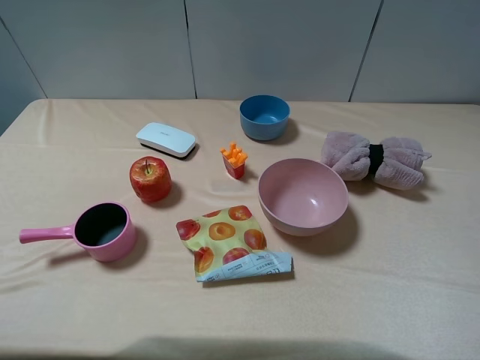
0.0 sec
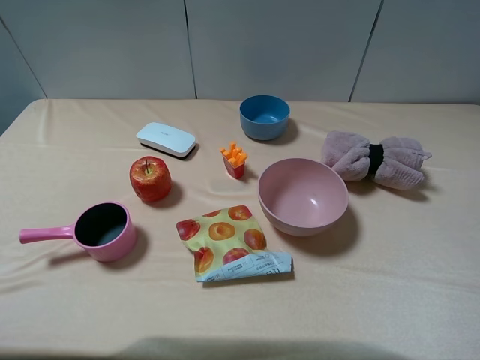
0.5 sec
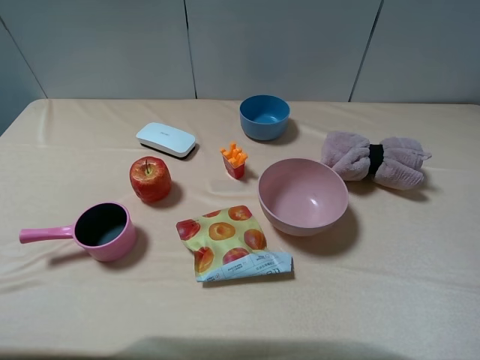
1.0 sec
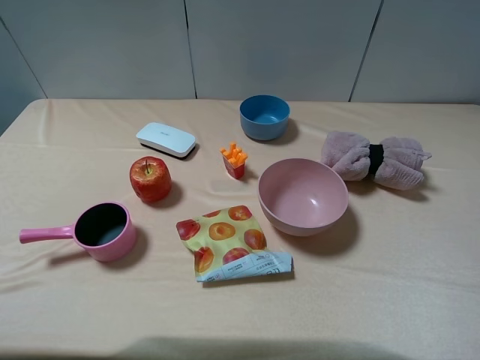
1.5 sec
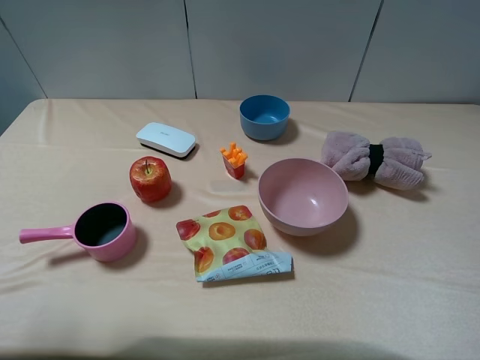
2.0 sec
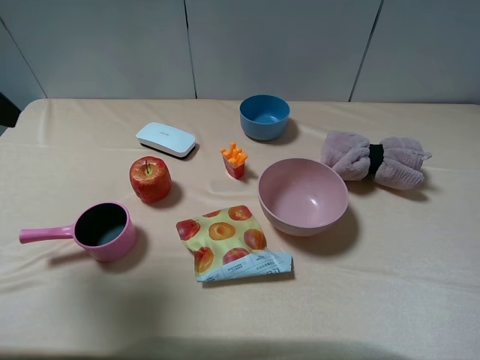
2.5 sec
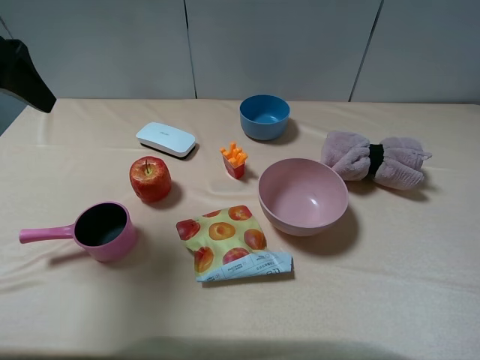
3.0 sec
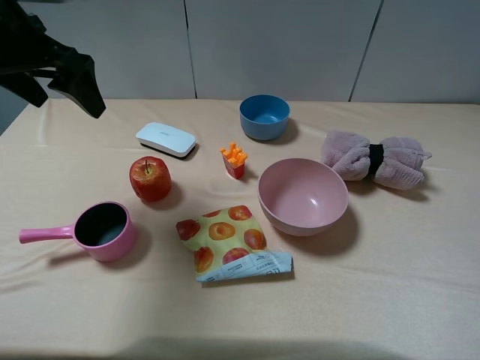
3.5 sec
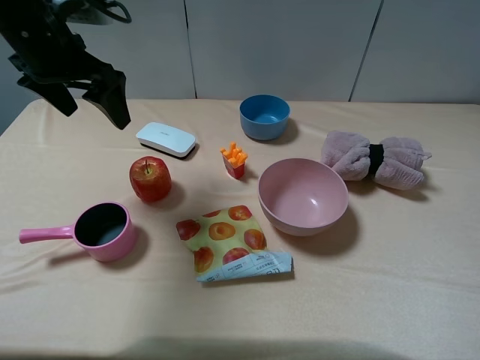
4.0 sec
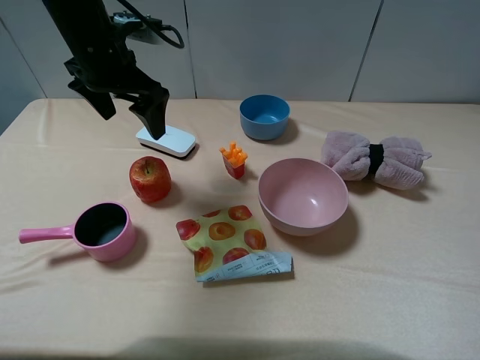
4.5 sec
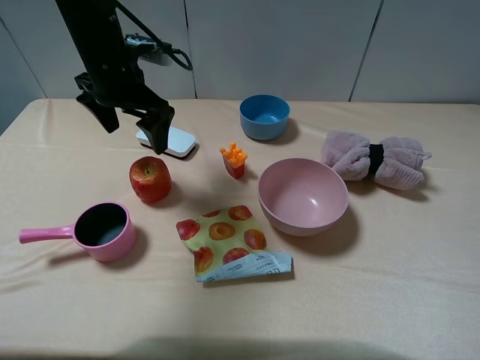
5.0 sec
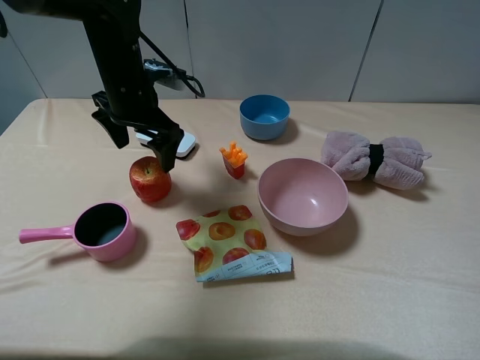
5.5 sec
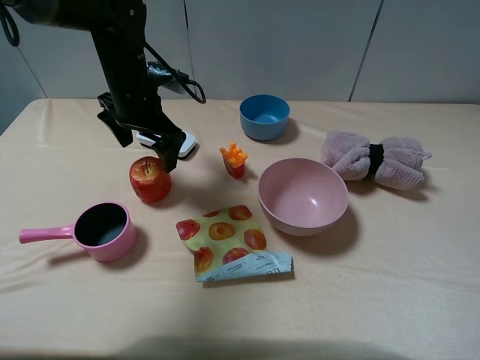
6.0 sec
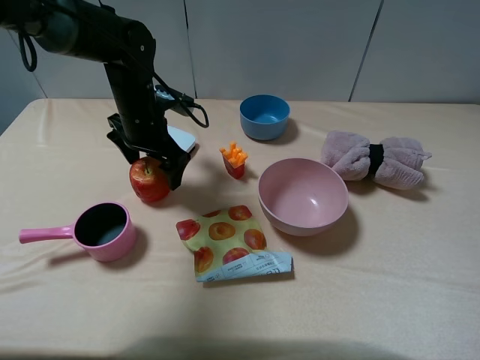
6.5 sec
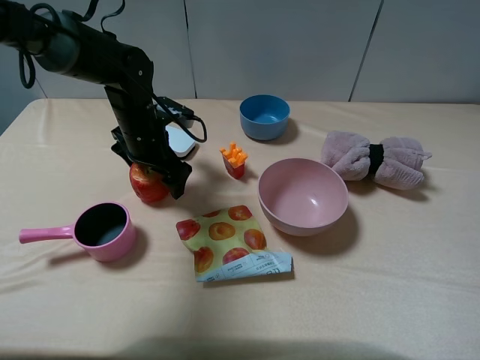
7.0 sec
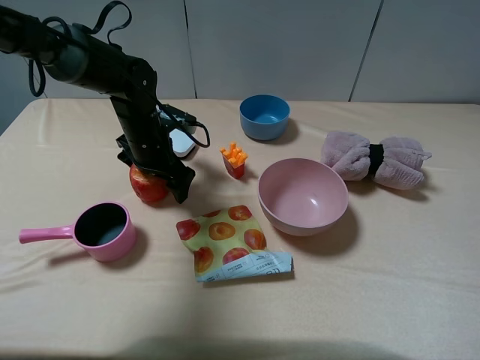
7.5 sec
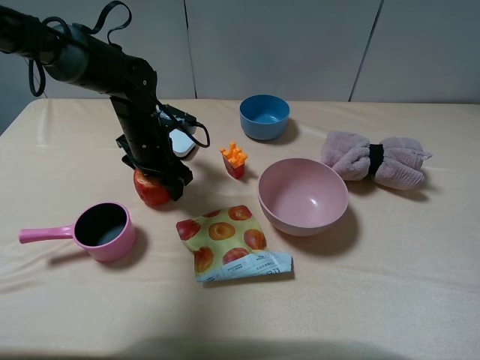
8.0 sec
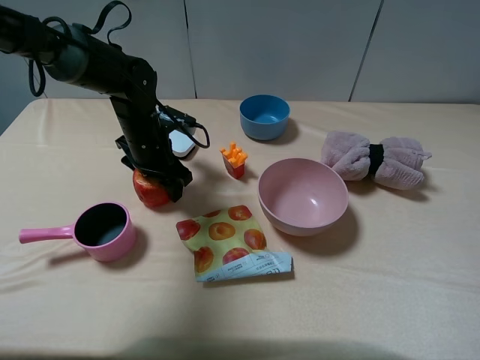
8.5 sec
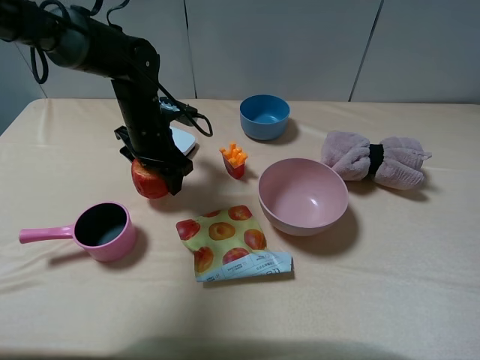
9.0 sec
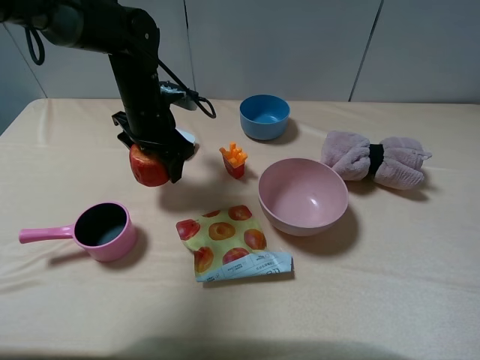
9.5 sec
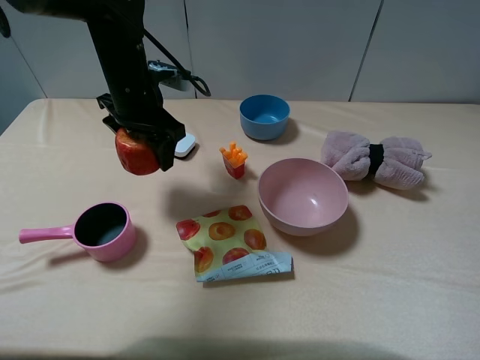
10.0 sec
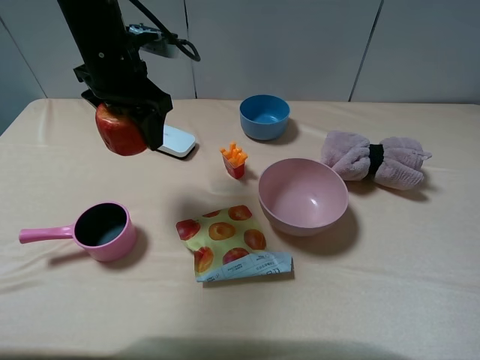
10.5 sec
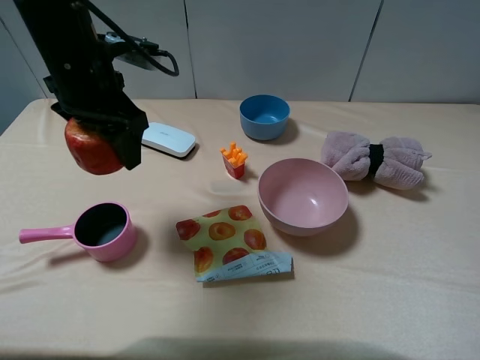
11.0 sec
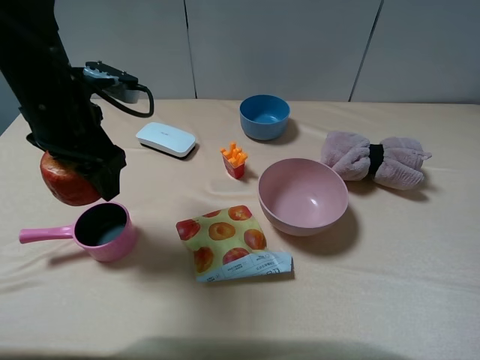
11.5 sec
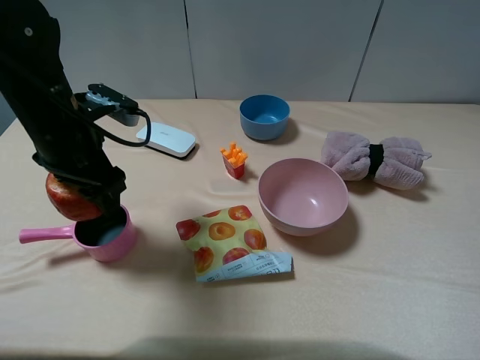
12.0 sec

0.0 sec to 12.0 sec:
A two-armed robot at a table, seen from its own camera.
Task of the whole recording: pick up an item with a gripper and place it in a random container on the table.
Step, 0.0 sec to 8.0 sec: Grasp the apple with the left gripper.
0.0 sec to 2.0 sec: The left gripper travels forward and upward by approximately 10 cm.
2.0 sec to 4.0 sec: The left gripper shifts approximately 25 cm forward.
4.0 sec to 6.0 sec: The left gripper shifts roughly 10 cm downward and to the right.
6.0 sec to 8.0 sec: The left gripper shifts some 5 cm downward, and closes its fingers.
8.0 sec to 10.0 sec: The left gripper heads upward, covering some 10 cm.
10.0 sec to 12.0 sec: The left gripper heads backward, covering some 10 cm.

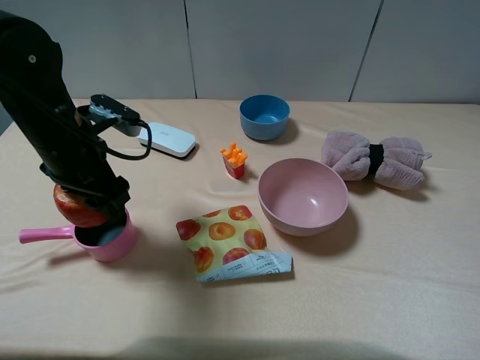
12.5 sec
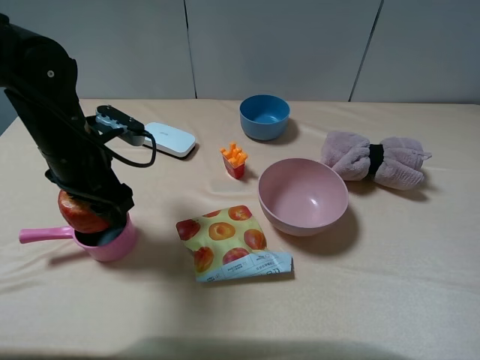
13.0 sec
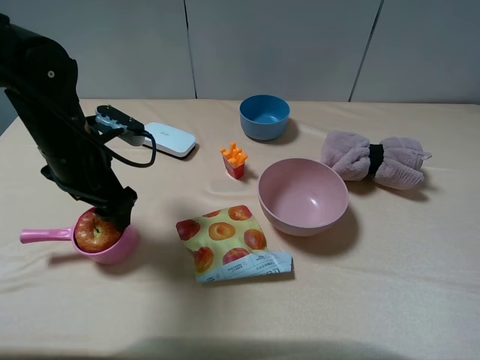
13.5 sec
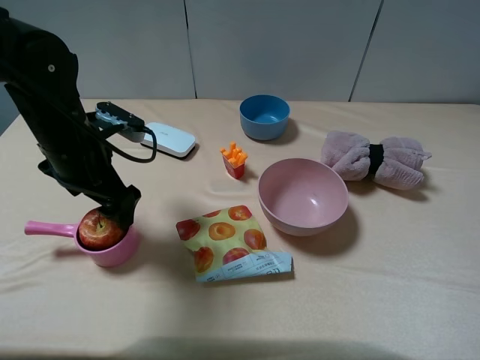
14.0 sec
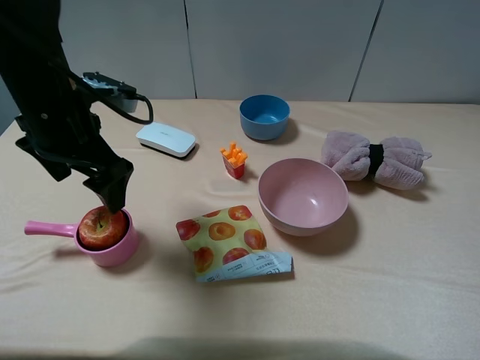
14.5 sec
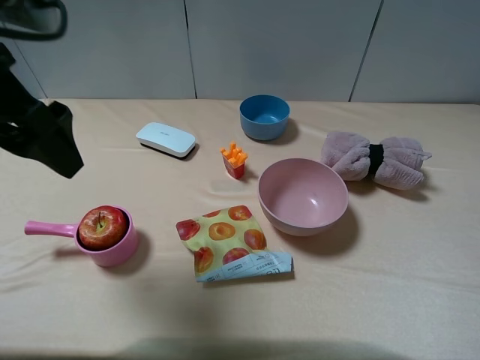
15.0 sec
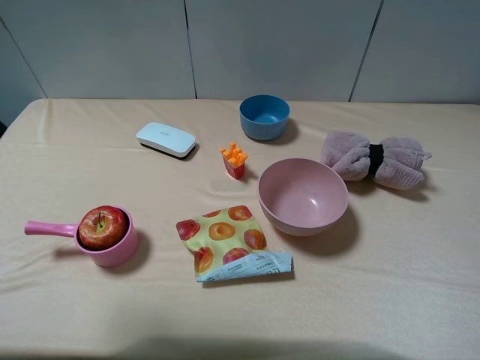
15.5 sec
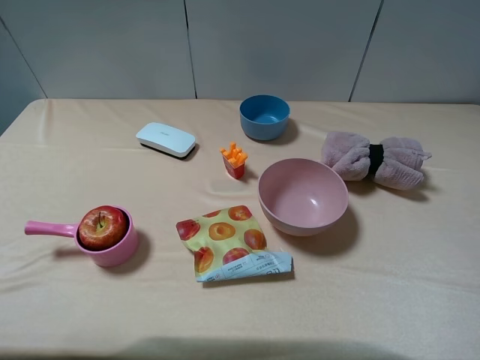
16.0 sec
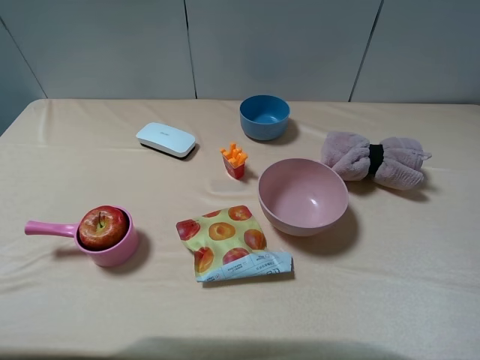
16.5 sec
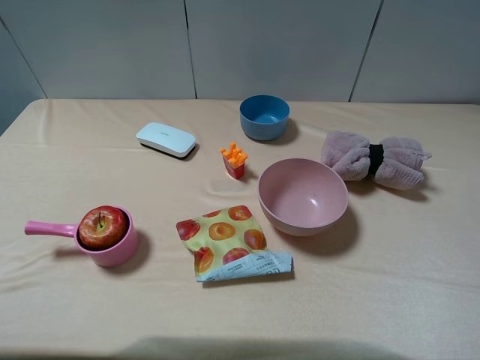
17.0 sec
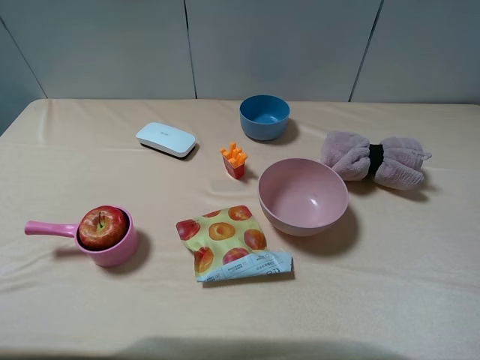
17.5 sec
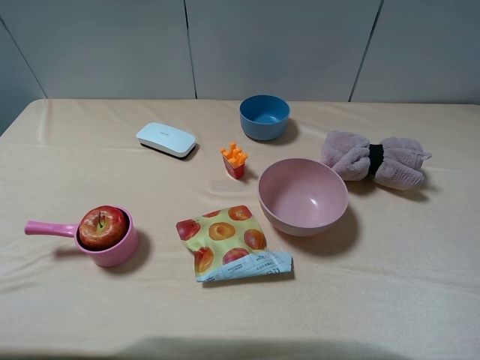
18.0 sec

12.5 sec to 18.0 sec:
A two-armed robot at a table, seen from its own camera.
Task of the whole recording: pick up an item with a gripper and place it in a random container on the table.
Step, 12.5 sec to 14.5 sec: Place the apple into the pink pot with the left gripper.
12.5 sec to 14.5 sec: The left gripper opens up.
14.5 sec to 16.0 sec: The left gripper goes some 25 cm backward, upward and to the left.
